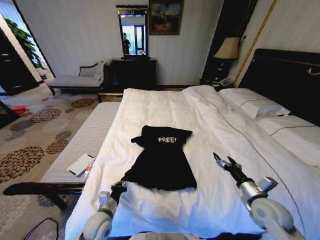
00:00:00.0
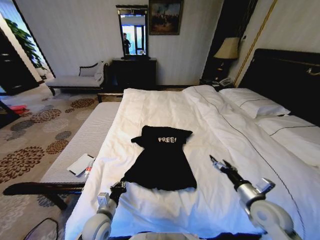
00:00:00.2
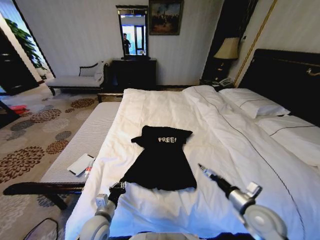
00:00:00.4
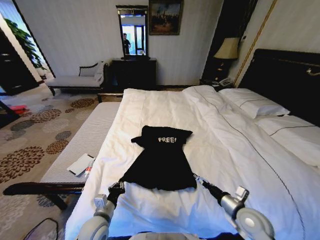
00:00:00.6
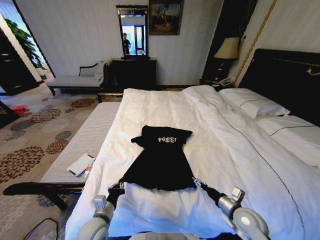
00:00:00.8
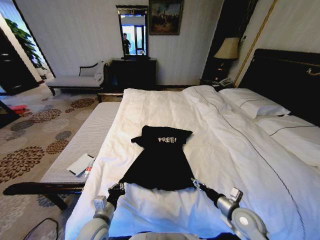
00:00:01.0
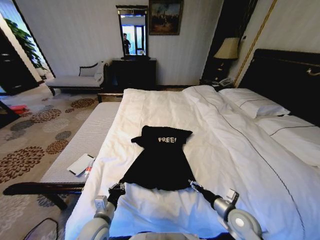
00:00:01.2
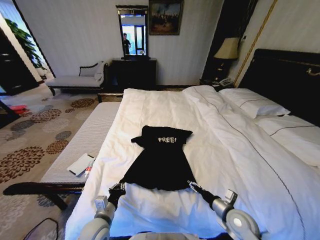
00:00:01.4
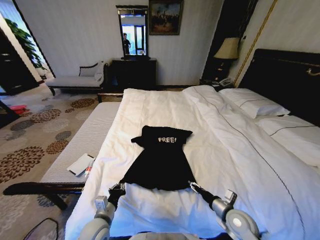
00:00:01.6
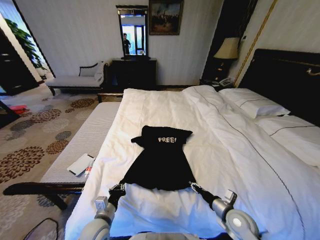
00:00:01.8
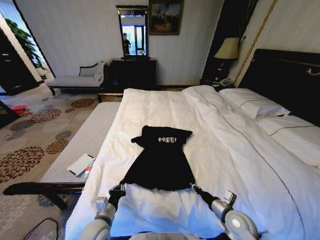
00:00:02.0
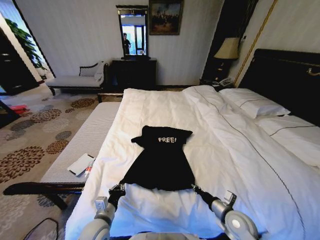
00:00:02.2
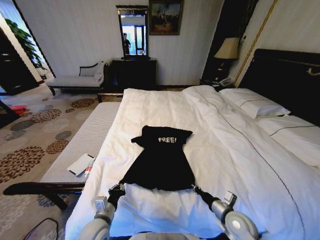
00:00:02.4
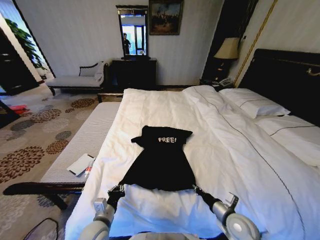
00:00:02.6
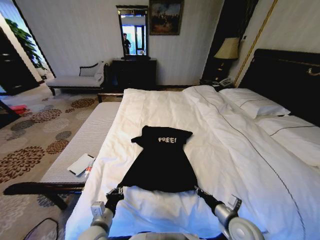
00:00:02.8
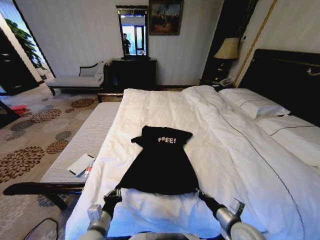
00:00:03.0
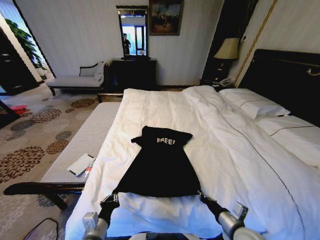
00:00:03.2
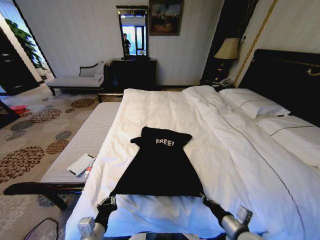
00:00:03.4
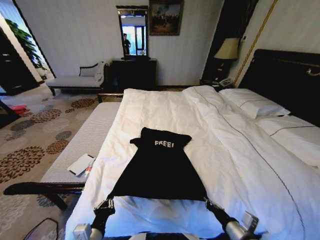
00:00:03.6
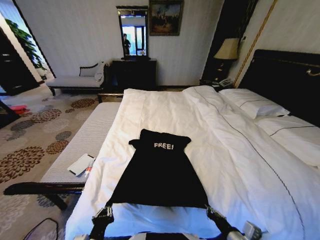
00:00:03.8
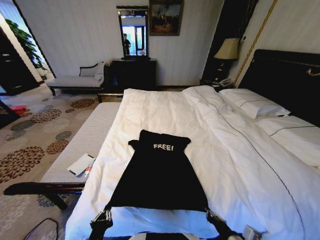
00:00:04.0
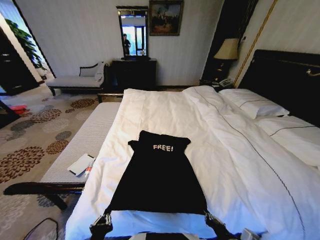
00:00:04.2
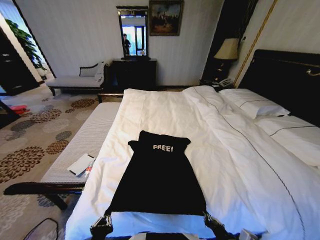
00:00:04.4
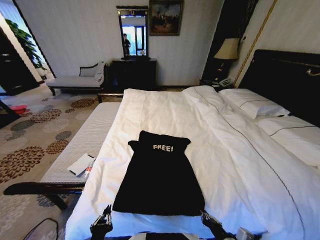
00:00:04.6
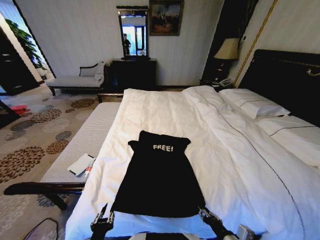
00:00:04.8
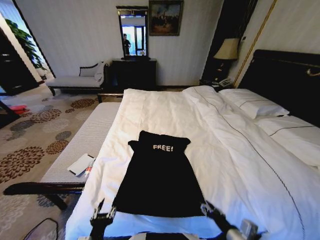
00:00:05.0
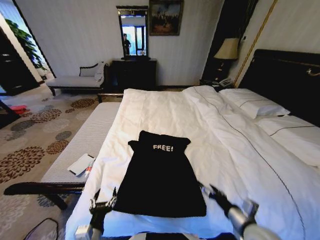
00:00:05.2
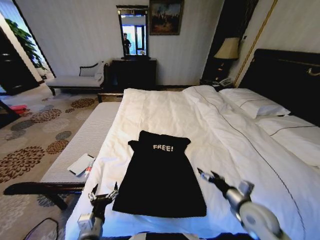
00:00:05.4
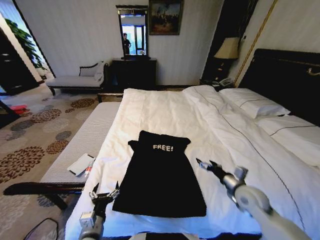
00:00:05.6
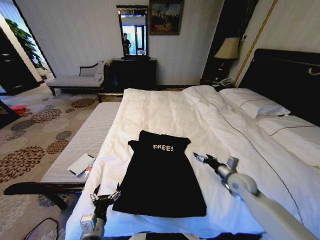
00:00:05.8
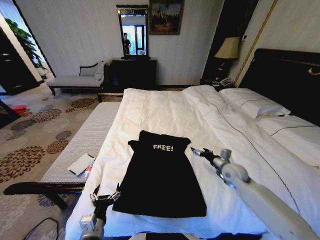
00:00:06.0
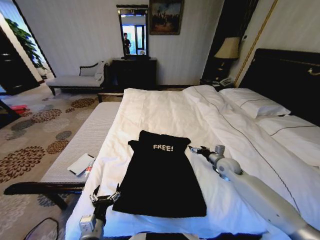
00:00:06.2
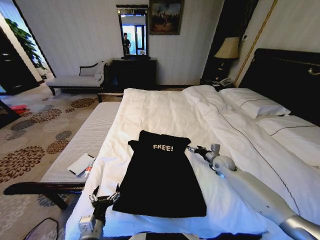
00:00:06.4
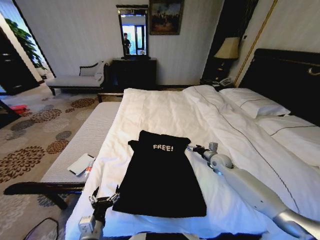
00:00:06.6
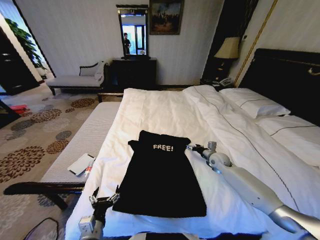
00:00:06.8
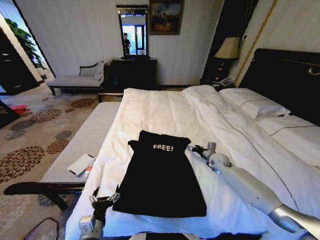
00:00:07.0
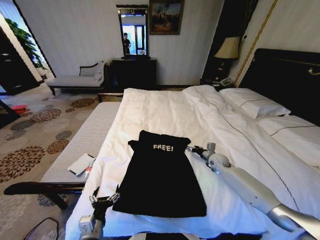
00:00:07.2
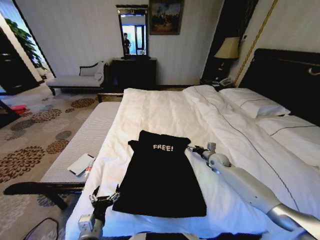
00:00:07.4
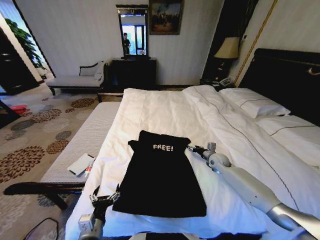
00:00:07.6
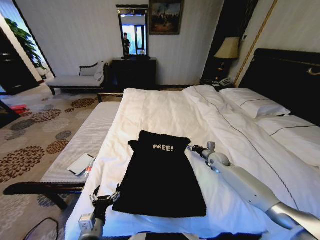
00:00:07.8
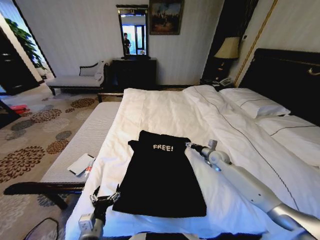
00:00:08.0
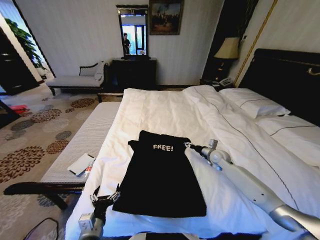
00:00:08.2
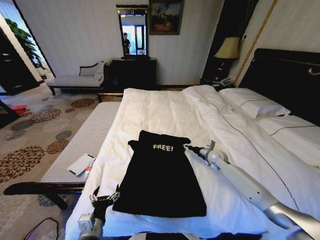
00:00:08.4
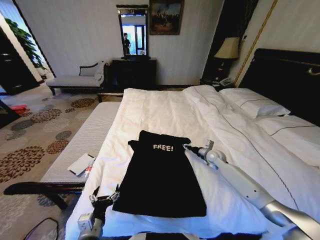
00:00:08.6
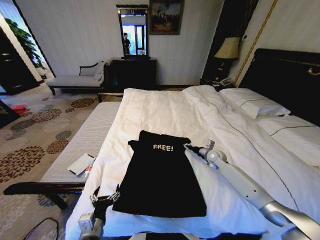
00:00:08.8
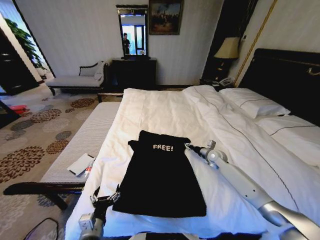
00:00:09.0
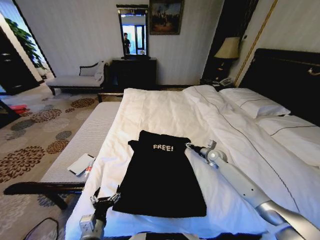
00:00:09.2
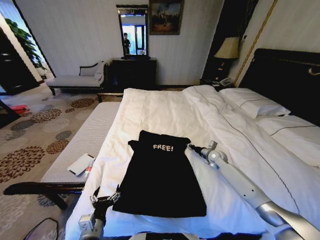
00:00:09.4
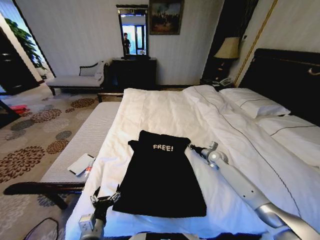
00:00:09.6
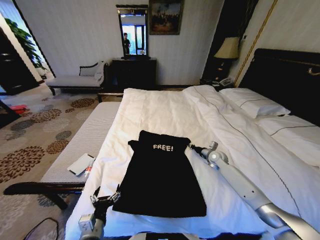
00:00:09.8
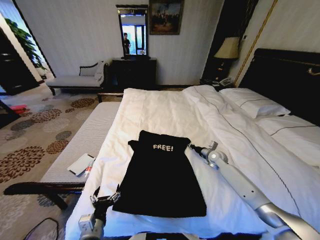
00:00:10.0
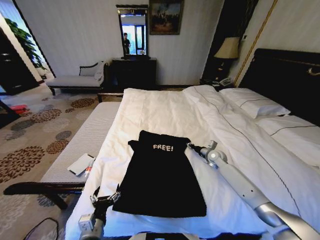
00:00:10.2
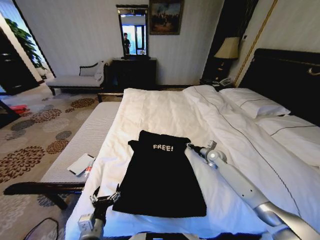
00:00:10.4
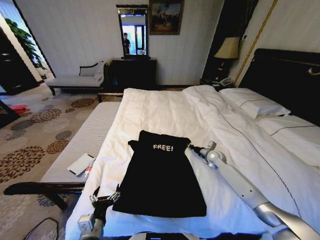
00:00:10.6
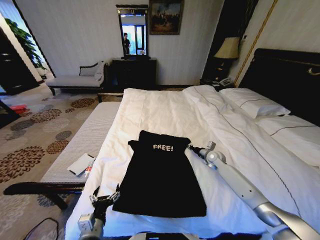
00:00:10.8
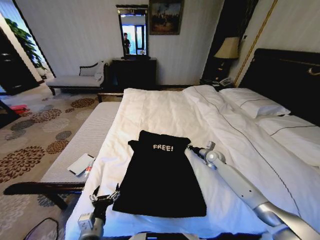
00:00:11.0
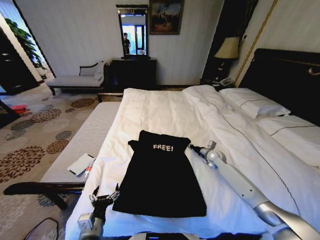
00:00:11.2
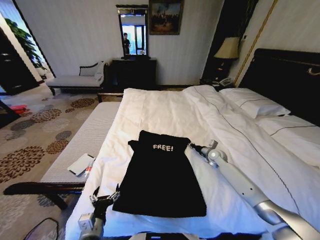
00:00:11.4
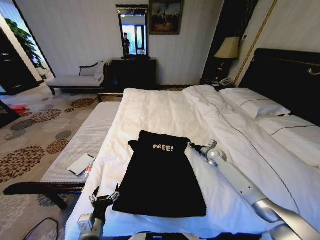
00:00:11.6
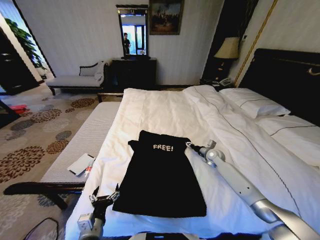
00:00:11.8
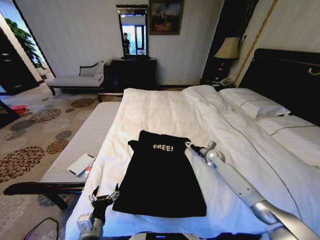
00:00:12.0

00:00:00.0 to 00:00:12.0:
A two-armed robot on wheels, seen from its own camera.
Task of the whole recording: Fold the clothes on the bed.
00:00:00.0 to 00:00:01.6: The right gripper moves to the left and downward, approximately 10 cm.
00:00:01.6 to 00:00:03.0: The right gripper changes place by roughly 5 cm, and closes.
00:00:03.0 to 00:00:04.4: Both grippers travel together backward, about 10 cm.
00:00:04.4 to 00:00:06.0: The left gripper shifts roughly 10 cm forward, and opens up. The right gripper goes roughly 30 cm forward, and opens up.
00:00:06.0 to 00:00:07.6: The right gripper heads forward, covering roughly 10 cm.
00:00:09.0 to 00:00:10.4: The right gripper closes, then opens again.
00:00:10.4 to 00:00:12.0: The right gripper opens up.

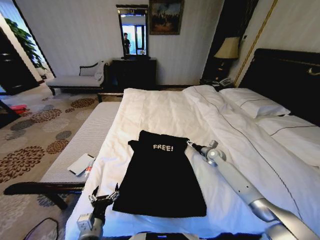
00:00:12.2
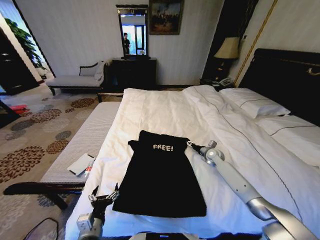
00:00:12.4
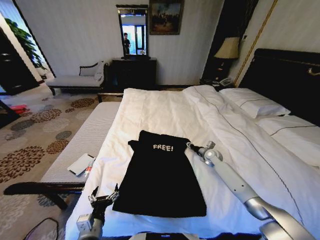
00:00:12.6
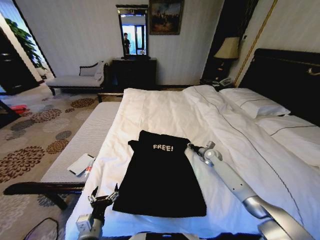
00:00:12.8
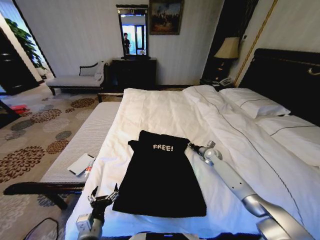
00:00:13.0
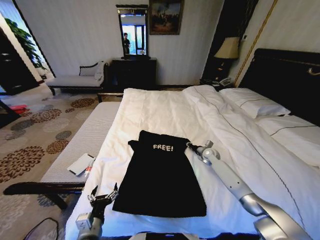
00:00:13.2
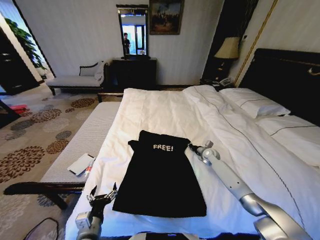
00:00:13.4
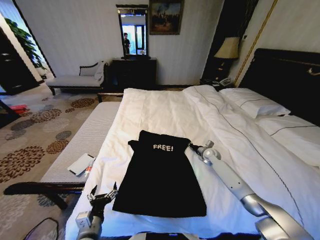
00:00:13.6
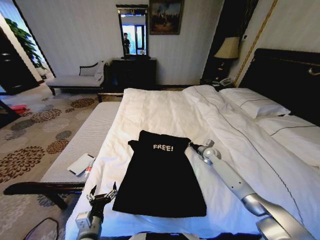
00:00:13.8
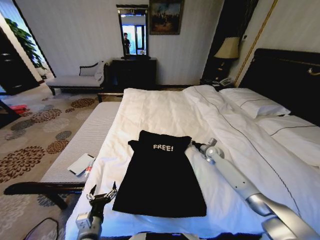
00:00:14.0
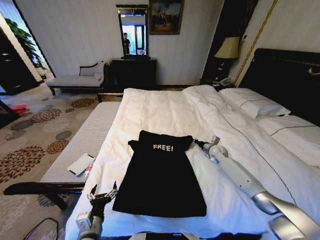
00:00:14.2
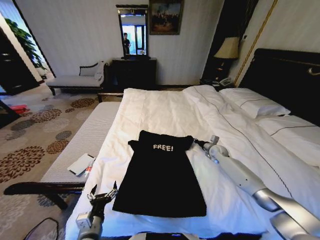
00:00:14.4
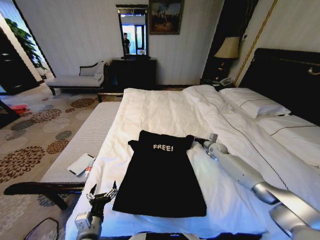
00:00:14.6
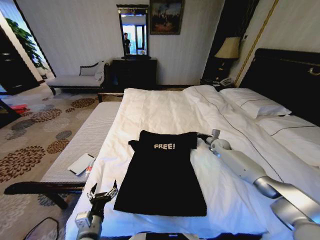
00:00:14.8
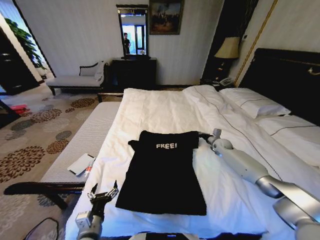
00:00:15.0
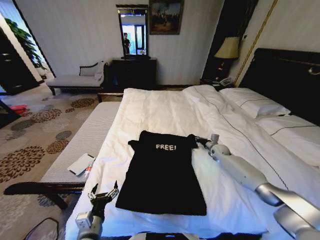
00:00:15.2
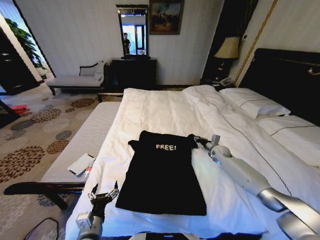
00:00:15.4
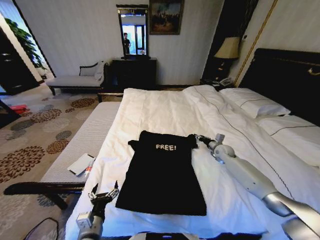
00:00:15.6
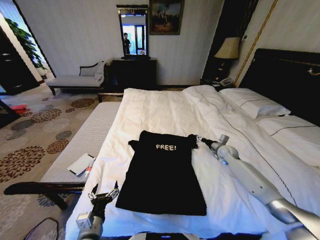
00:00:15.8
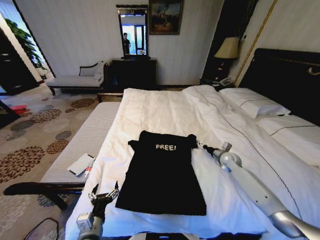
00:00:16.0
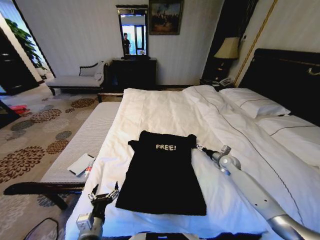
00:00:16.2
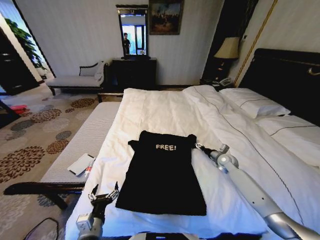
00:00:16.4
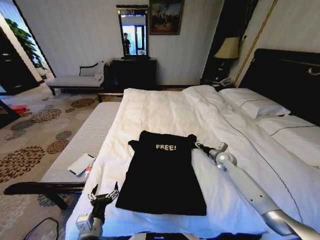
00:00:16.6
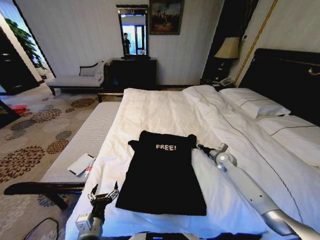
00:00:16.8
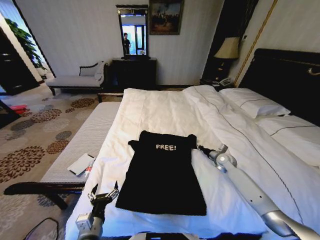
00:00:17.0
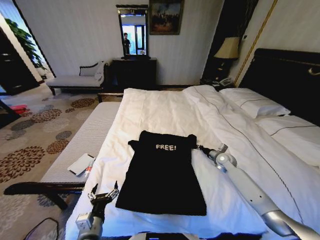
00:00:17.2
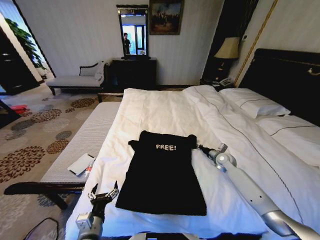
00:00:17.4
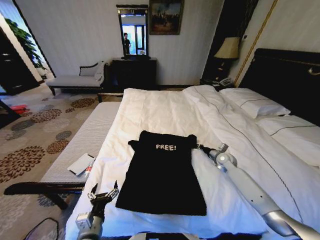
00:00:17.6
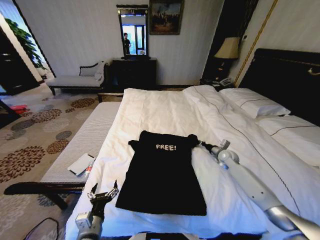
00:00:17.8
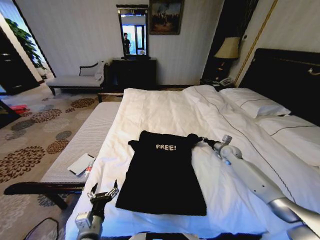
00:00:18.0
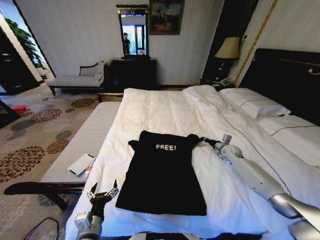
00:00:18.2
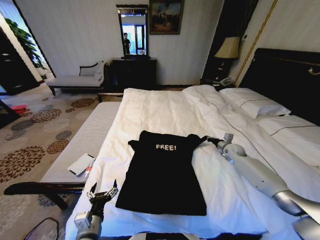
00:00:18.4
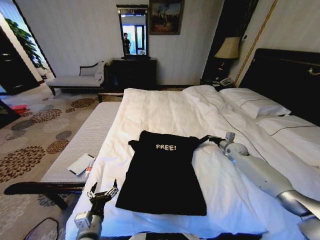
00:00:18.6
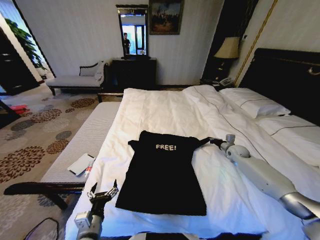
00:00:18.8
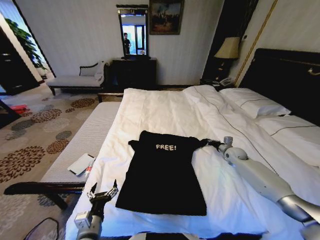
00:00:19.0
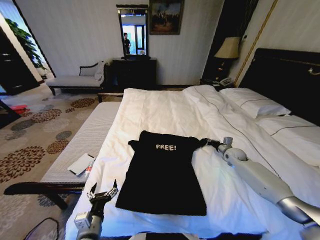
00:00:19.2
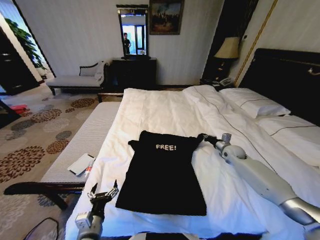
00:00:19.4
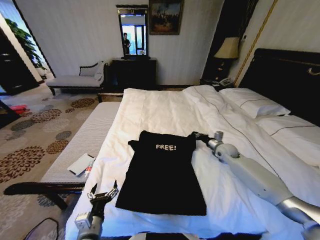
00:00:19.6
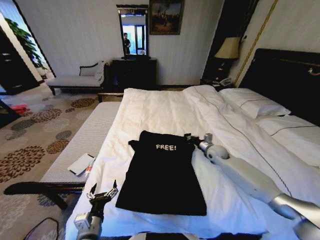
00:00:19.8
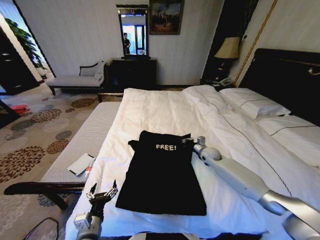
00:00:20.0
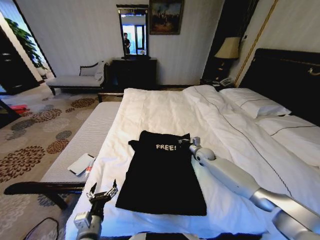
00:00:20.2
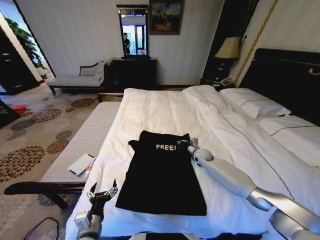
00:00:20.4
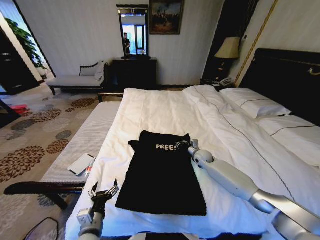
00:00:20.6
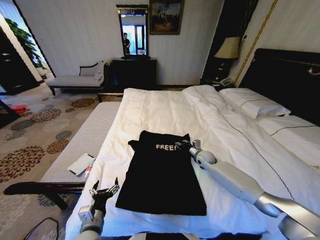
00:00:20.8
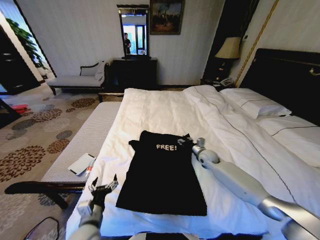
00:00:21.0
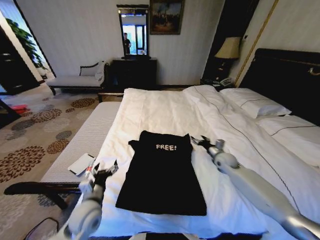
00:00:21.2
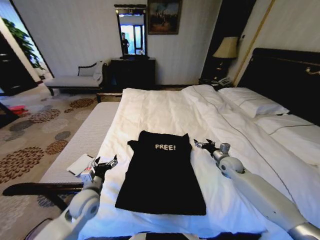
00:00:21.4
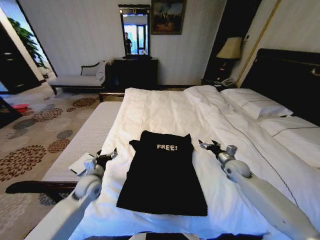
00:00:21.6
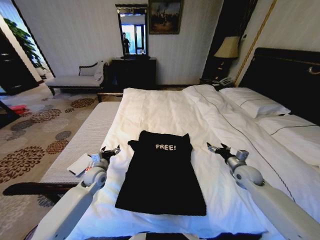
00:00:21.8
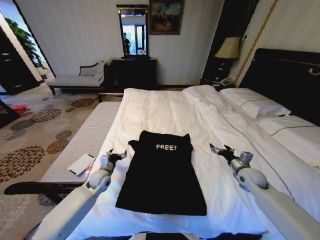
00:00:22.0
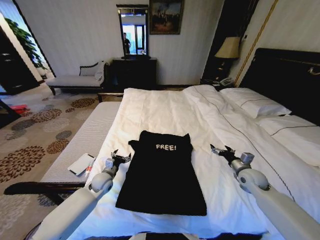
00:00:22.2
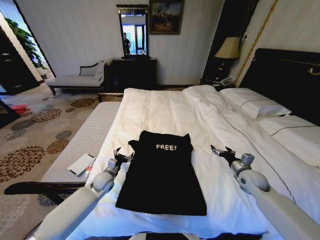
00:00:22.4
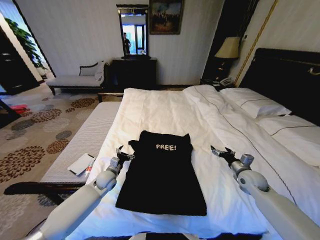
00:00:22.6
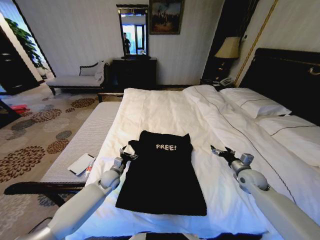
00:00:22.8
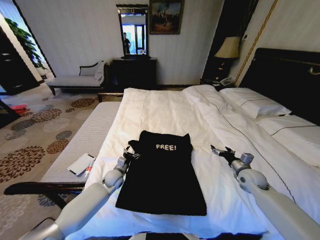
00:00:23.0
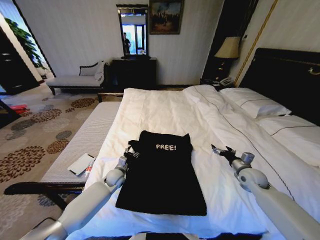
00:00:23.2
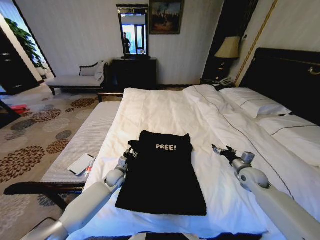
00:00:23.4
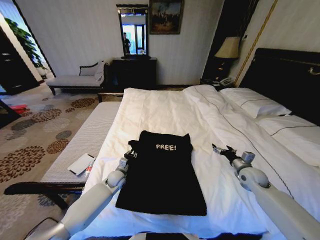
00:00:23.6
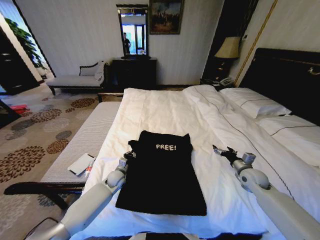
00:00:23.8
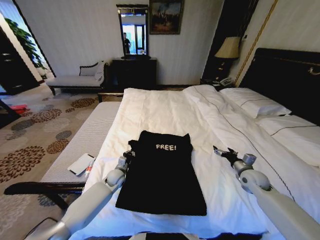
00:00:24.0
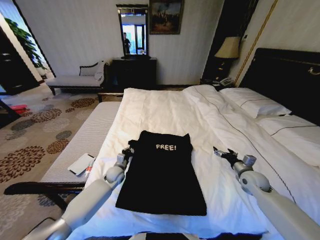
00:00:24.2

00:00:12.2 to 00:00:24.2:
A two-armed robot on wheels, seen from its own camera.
Task of the whole recording: Fold the clothes on the bed.
00:00:12.2 to 00:00:13.8: The right gripper closes its fingers.
00:00:13.8 to 00:00:15.2: The right gripper shifts roughly 5 cm to the right.
00:00:15.2 to 00:00:16.6: The right gripper is displaced backward by approximately 5 cm, and opens up.
00:00:16.6 to 00:00:18.2: The right gripper ends up approximately 5 cm from where it was, and closes its fingers.
00:00:18.2 to 00:00:19.8: The right gripper heads to the left, covering approximately 10 cm.
00:00:19.8 to 00:00:21.2: The right gripper moves about 5 cm to the left and comes back, and opens up. The left gripper travels forward by some 10 cm.
00:00:21.2 to 00:00:22.6: The left gripper goes some 20 cm forward and downward, while the right gripper heads backward and to the right, covering roughly 10 cm.
00:00:22.6 to 00:00:24.2: The left gripper moves roughly 5 cm, and closes up.
